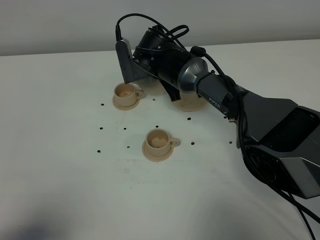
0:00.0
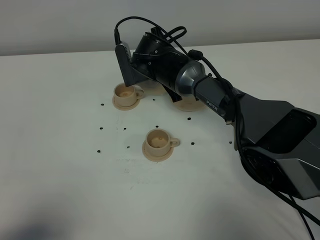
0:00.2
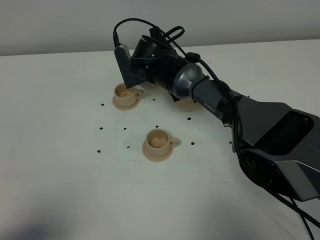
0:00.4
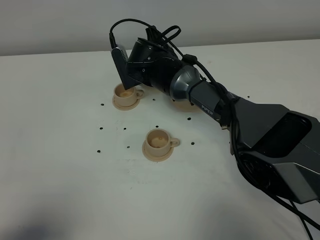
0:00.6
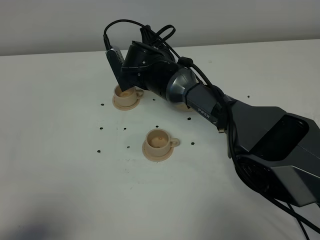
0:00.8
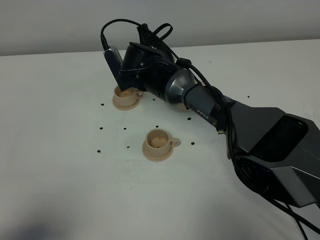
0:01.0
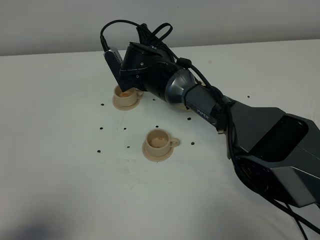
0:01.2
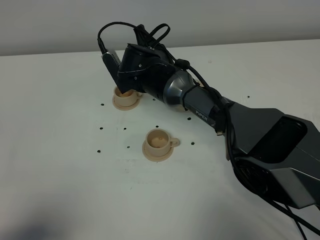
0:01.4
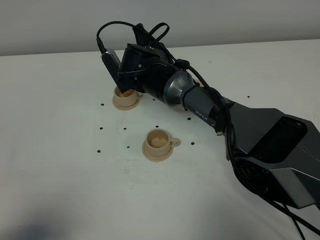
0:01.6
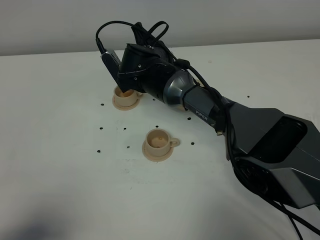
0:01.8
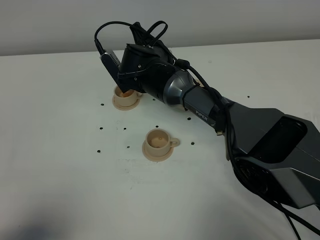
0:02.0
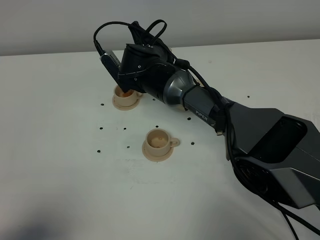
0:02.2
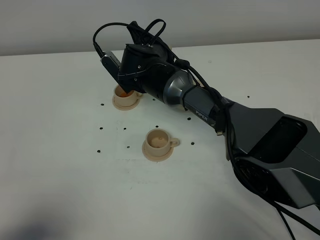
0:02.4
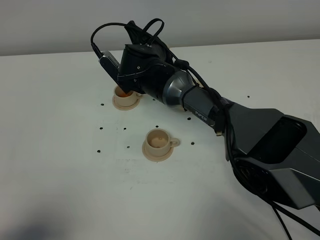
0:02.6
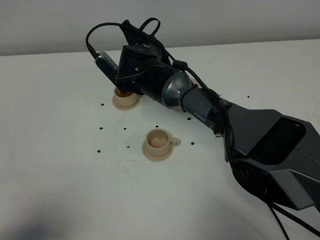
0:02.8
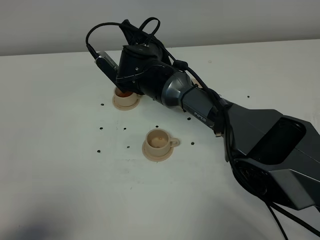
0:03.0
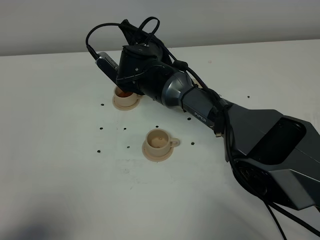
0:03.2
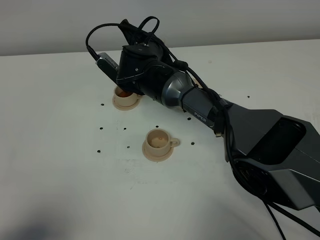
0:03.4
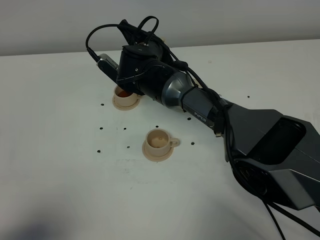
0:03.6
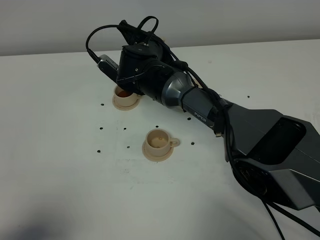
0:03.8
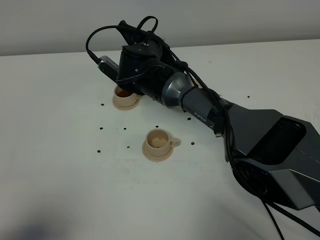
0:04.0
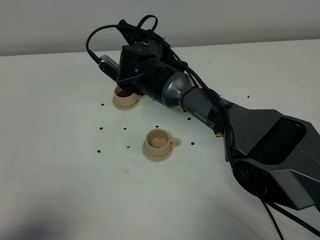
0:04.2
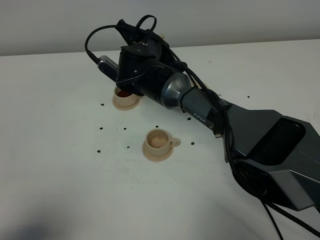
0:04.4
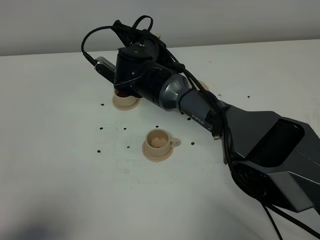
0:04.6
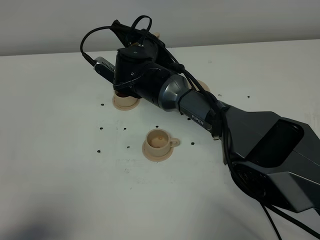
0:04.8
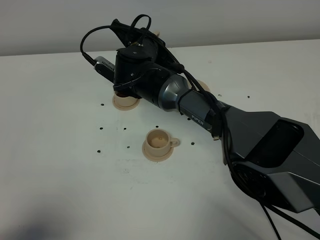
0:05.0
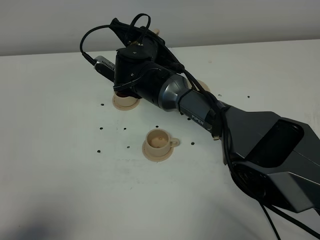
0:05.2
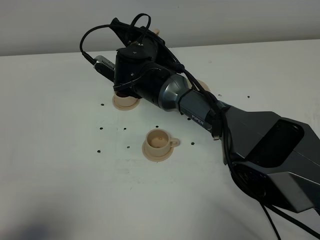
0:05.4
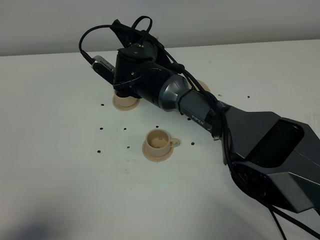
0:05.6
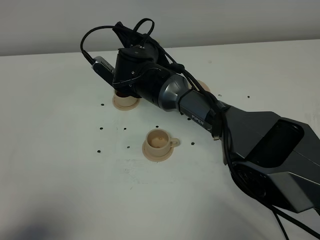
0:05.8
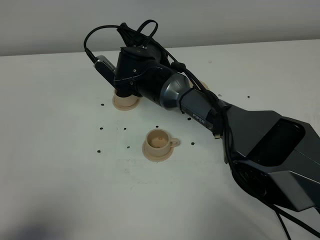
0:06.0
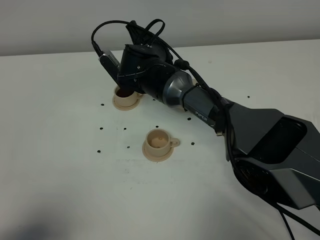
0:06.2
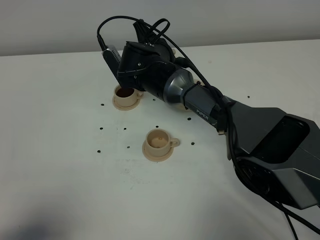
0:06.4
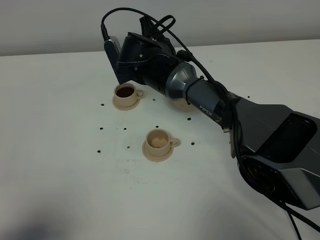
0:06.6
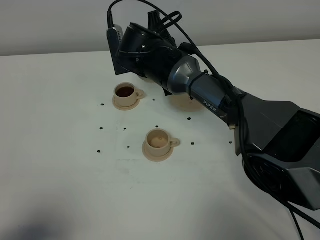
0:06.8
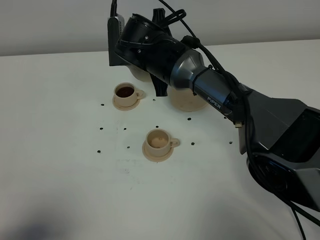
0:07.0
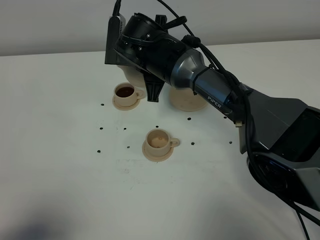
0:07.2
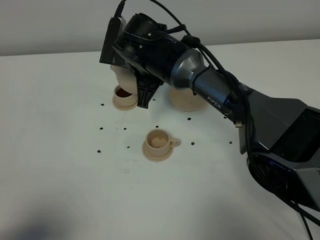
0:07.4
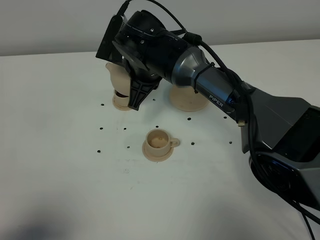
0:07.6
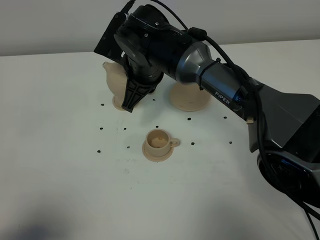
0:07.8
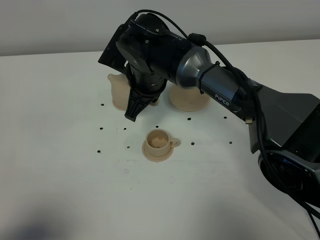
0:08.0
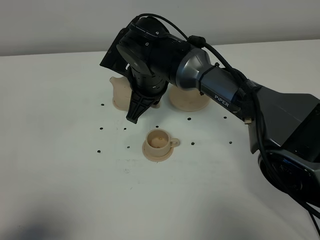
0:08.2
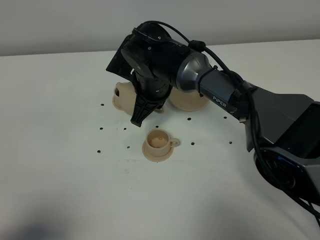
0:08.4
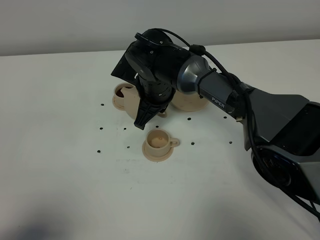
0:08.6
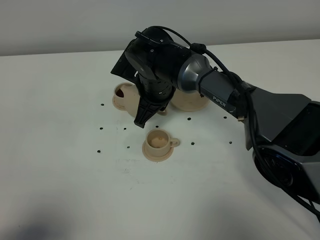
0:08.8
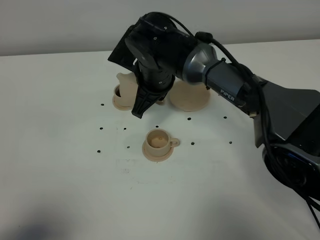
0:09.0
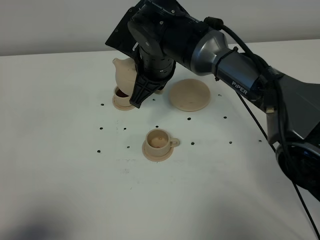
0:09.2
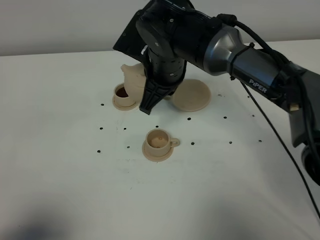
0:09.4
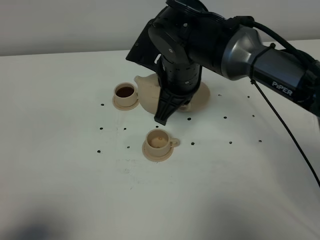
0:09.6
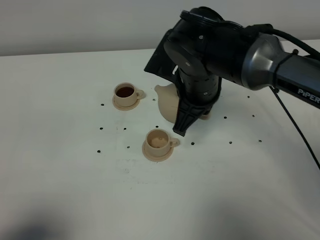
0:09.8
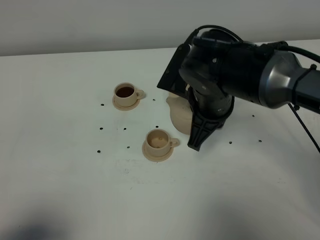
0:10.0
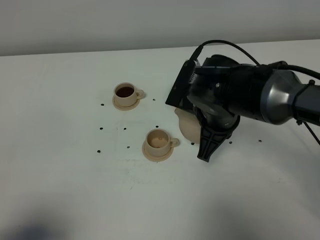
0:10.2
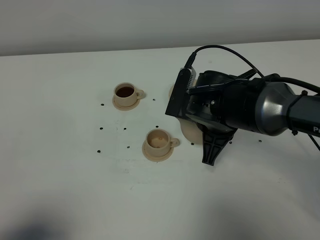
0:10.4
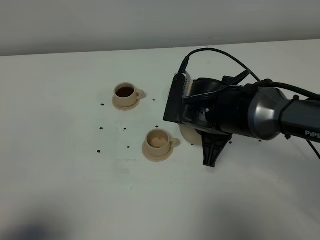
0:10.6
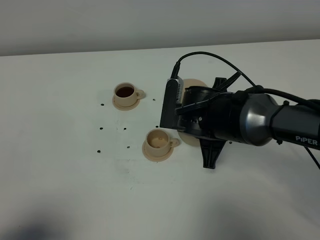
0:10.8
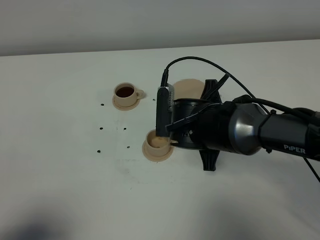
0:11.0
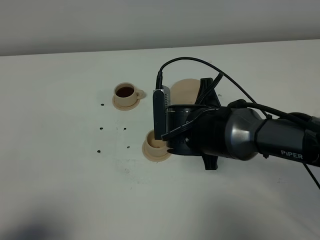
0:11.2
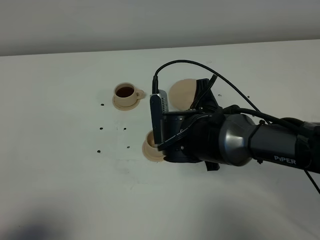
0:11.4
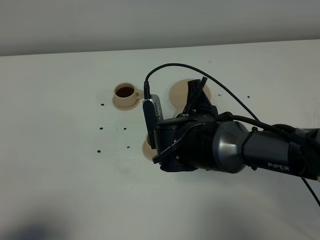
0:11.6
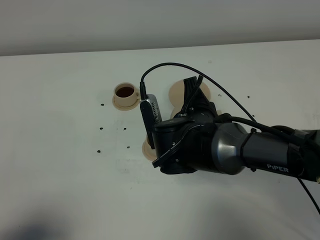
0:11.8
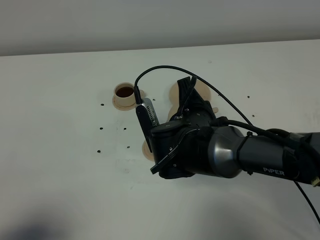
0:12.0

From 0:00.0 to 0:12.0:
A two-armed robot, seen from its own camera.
Task of the whole recording: grasp the brown teapot and pour the tea into the two brown teacups one by one, put the brown teapot back in its original place.
Step, from 0:00.0 to 0:06.6: Pour tea into the teacup with the right gripper.
From 0:00.0 to 0:01.6: There are only small adjustments of the grippers.
From 0:01.6 to 0:03.0: The grippers move only a little.
From 0:03.0 to 0:06.0: There are only small adjustments of the grippers.
From 0:06.0 to 0:07.6: The right gripper ends up about 5 cm from where it was.
From 0:07.6 to 0:09.0: The grippers move only a little.
From 0:09.0 to 0:10.4: The right gripper moves to the right and backward, approximately 15 cm.
From 0:10.4 to 0:12.0: The right gripper ends up about 5 cm from where it was.

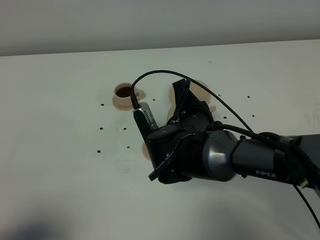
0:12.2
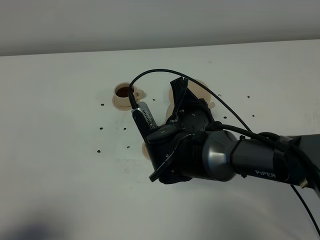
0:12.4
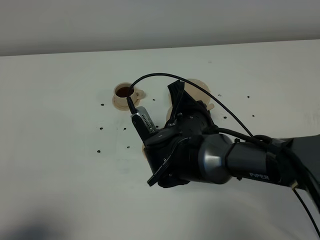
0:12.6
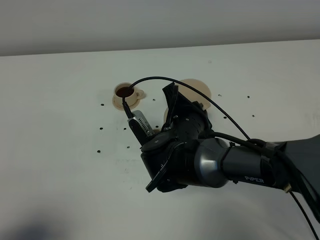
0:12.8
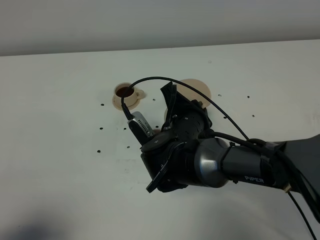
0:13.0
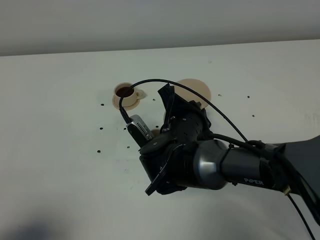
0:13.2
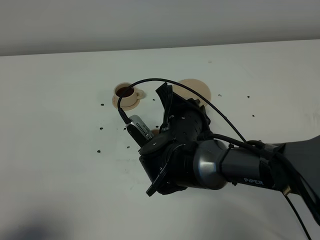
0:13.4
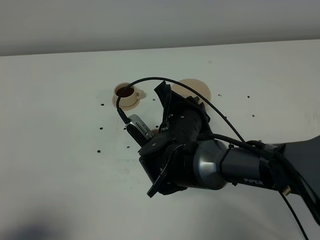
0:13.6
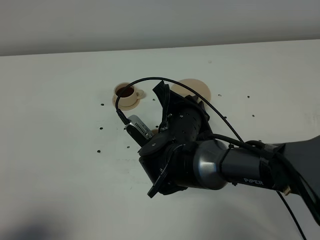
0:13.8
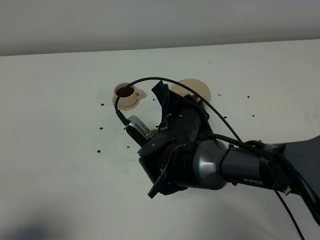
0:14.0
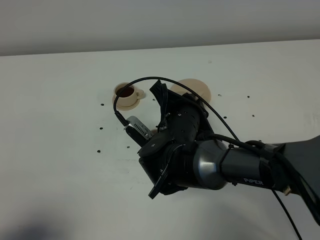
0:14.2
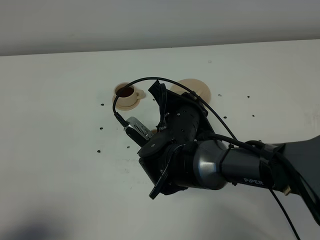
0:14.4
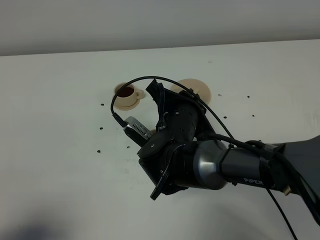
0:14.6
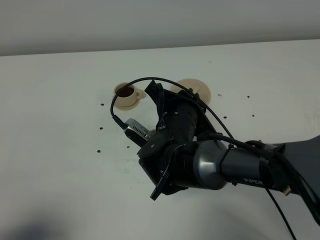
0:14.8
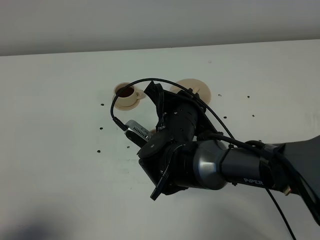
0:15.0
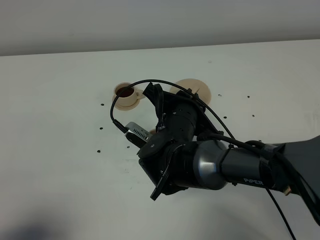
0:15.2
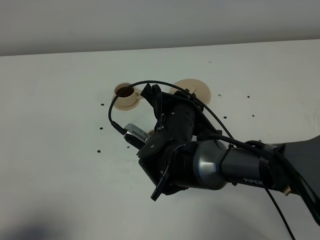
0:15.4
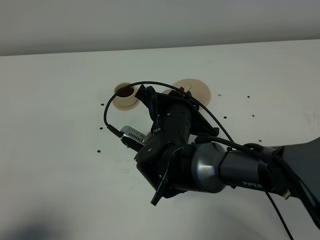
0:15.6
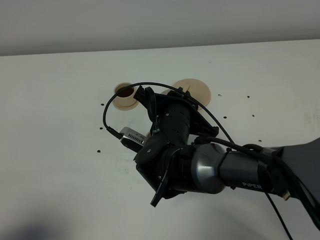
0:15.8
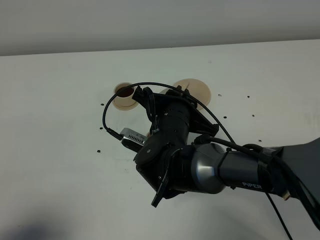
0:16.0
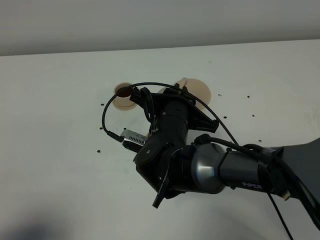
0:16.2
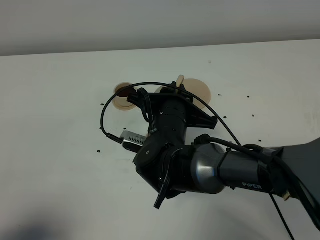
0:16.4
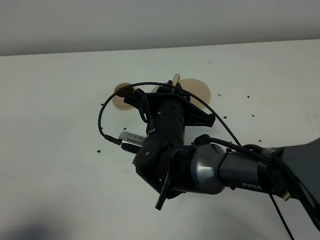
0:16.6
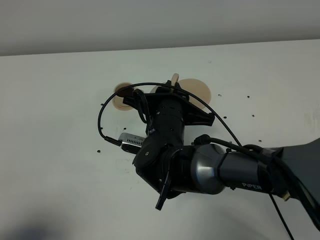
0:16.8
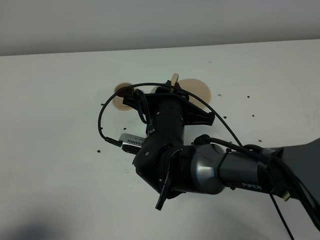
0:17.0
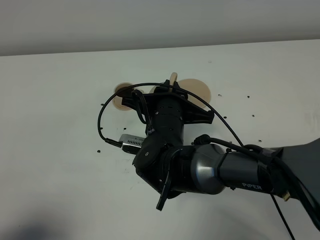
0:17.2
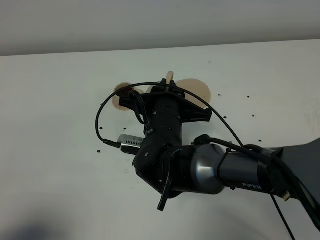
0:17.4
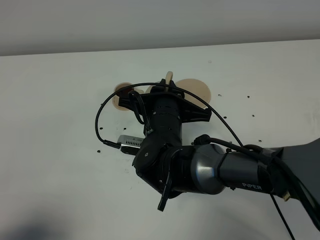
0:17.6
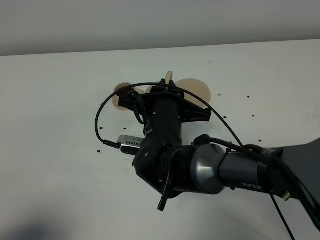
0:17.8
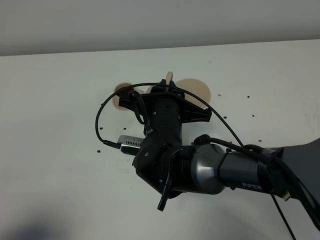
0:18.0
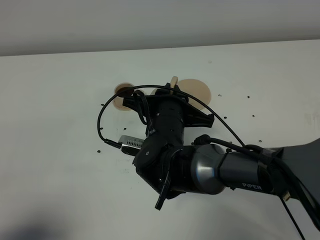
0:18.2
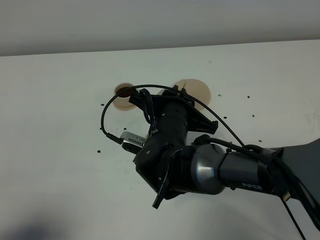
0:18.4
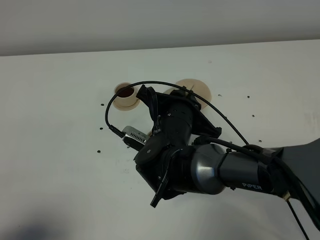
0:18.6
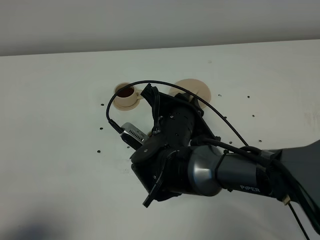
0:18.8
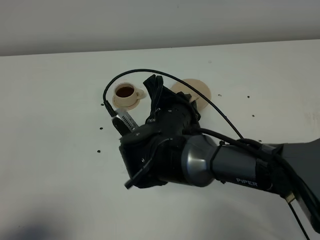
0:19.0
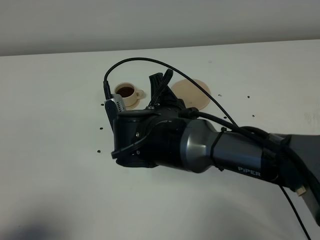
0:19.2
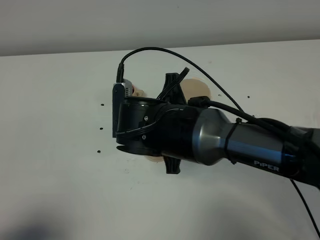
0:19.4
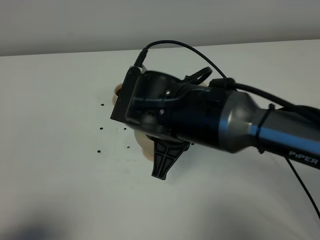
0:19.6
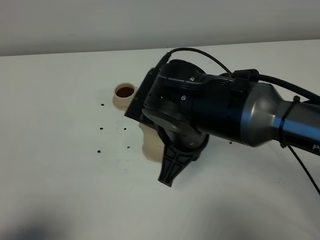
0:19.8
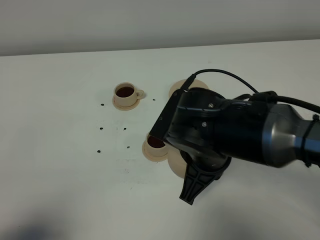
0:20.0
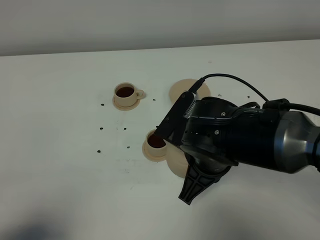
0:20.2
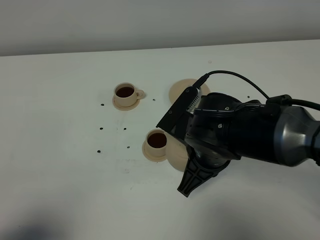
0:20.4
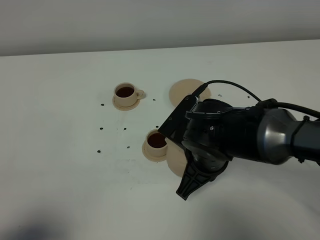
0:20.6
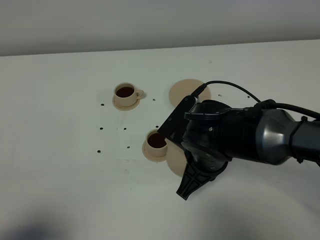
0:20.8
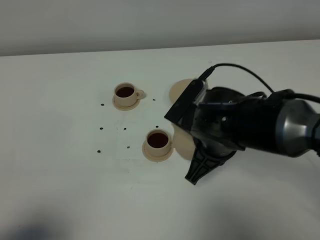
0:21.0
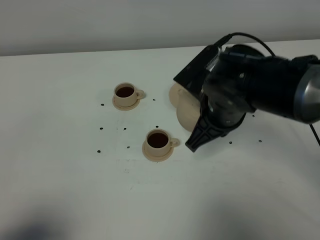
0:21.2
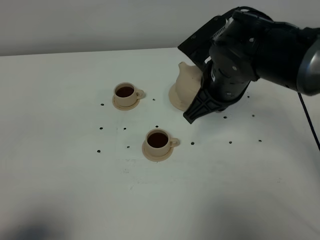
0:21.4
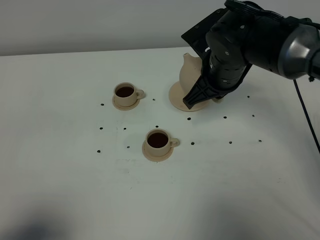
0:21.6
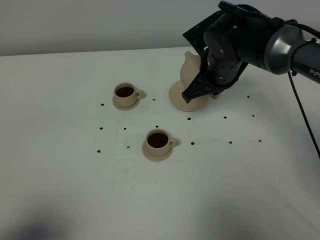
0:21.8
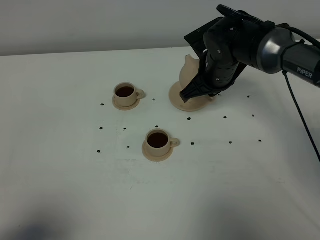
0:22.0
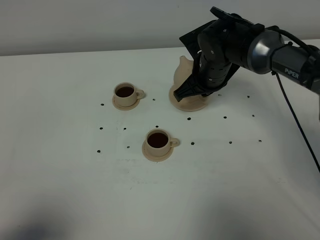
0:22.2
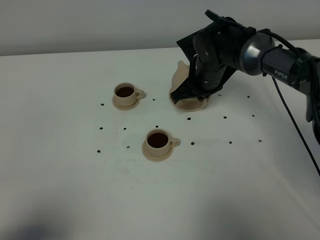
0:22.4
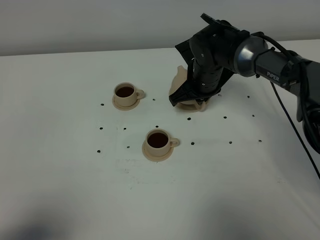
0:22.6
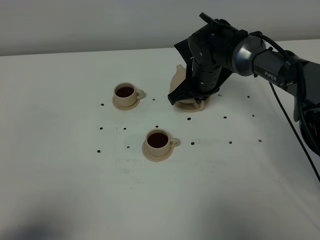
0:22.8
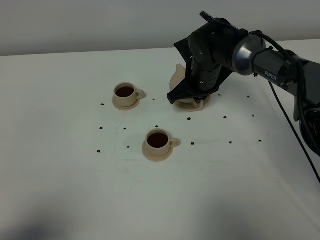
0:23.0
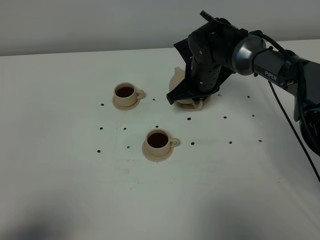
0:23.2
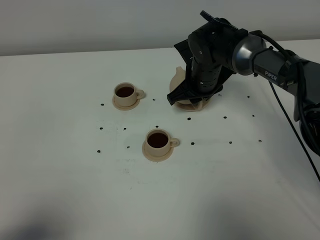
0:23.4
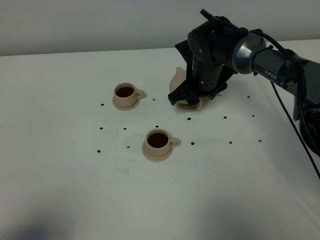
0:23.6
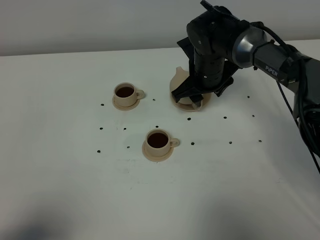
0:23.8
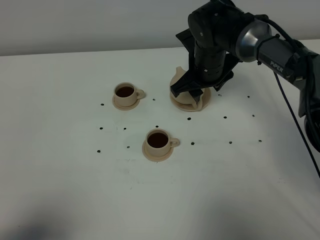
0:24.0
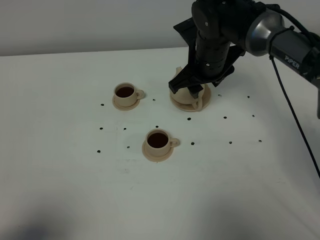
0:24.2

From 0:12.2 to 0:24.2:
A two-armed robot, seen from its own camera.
Task of the whole recording: grasp the brown teapot and pour the tea into the two brown teacups one by one, put the brown teapot back in its original place.
Step, from 0:12.2 to 0:19.0: Pour tea into the teacup with the right gripper.
From 0:12.2 to 0:13.8: The grippers move only a little.
From 0:13.8 to 0:15.2: The grippers make only small movements.
From 0:15.2 to 0:16.6: The grippers move only a little.
From 0:16.6 to 0:18.2: The grippers move only a little.
From 0:18.2 to 0:19.8: The right gripper heads upward, covering about 5 cm.
From 0:19.8 to 0:21.2: The right gripper is displaced forward and to the right by roughly 10 cm.
From 0:21.2 to 0:22.6: The right gripper travels forward and downward by approximately 15 cm.
From 0:22.6 to 0:24.2: The right gripper shifts roughly 10 cm upward, and opens.
